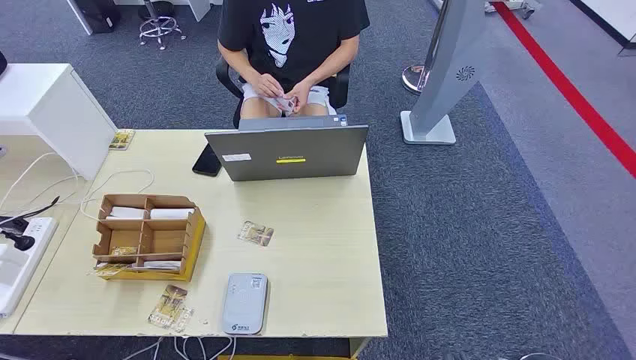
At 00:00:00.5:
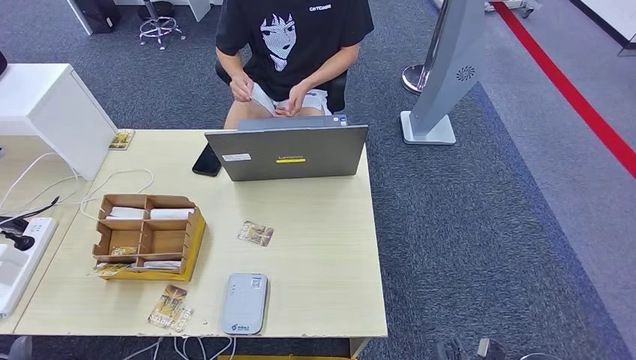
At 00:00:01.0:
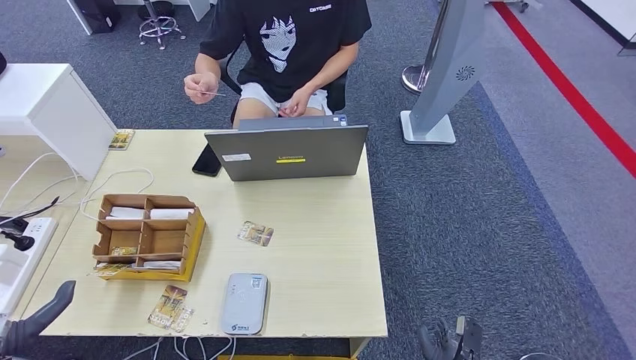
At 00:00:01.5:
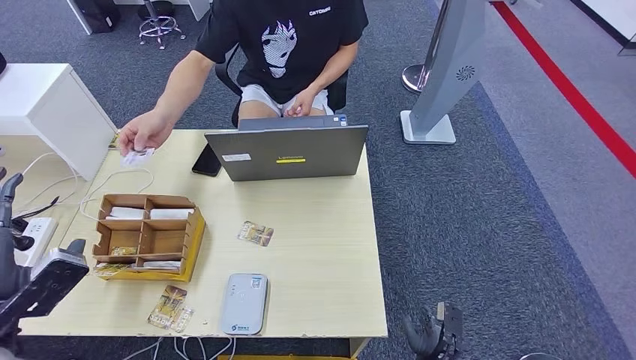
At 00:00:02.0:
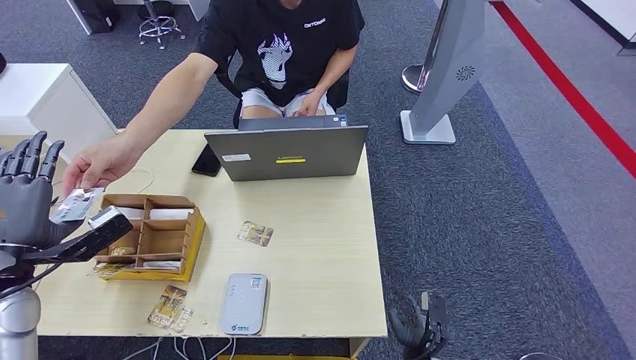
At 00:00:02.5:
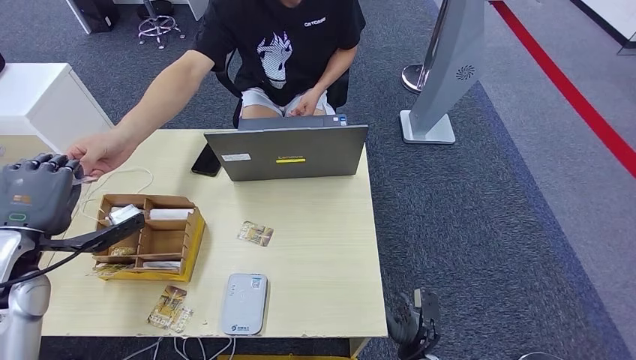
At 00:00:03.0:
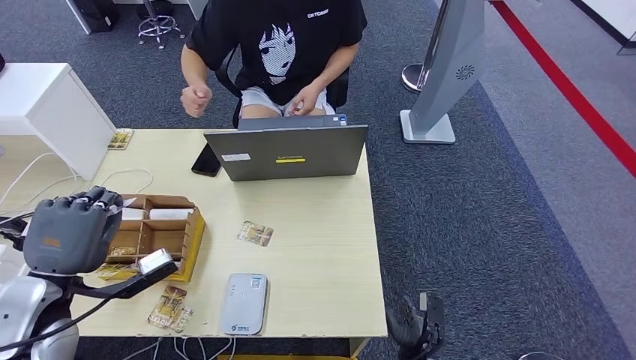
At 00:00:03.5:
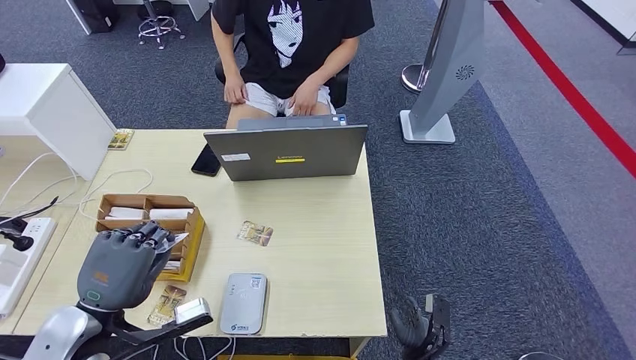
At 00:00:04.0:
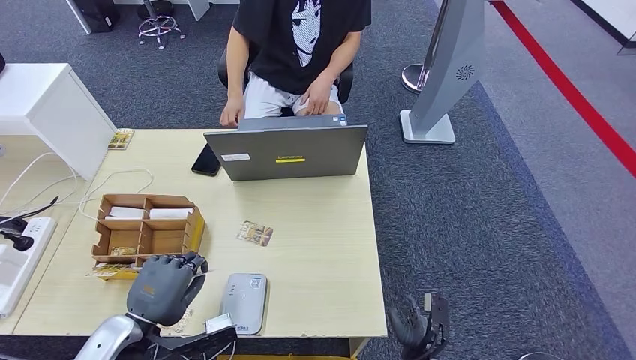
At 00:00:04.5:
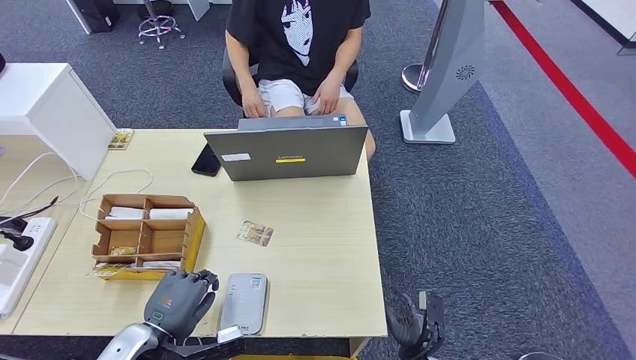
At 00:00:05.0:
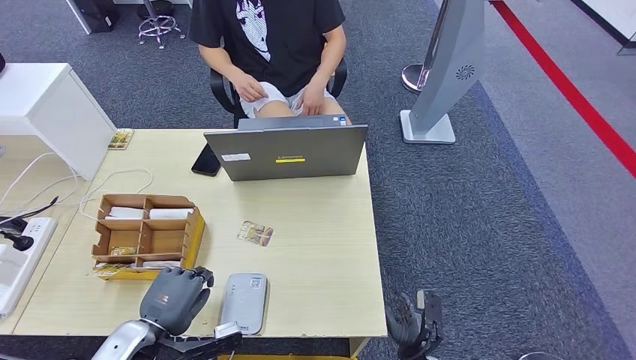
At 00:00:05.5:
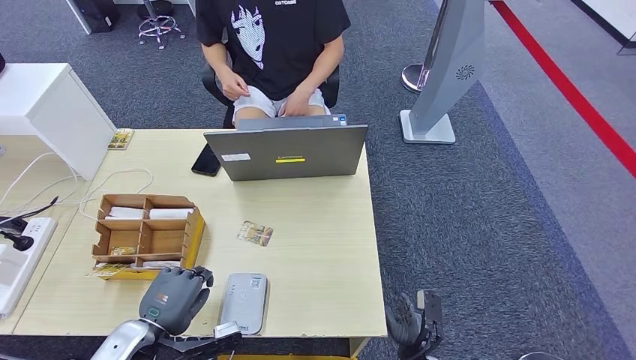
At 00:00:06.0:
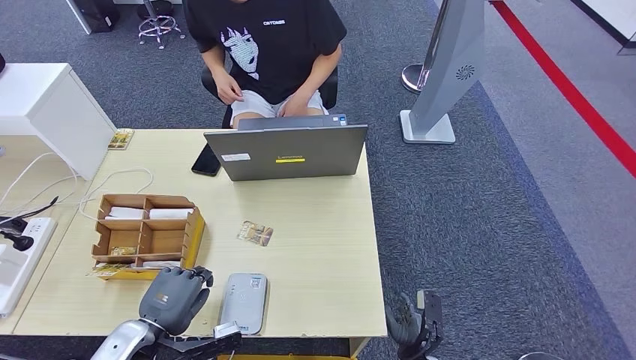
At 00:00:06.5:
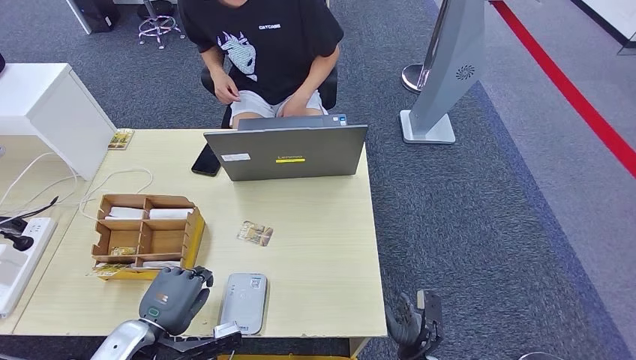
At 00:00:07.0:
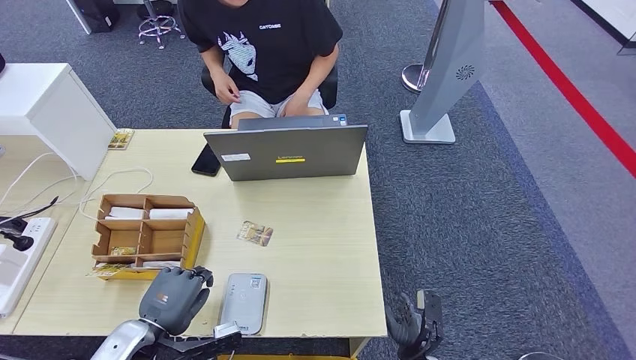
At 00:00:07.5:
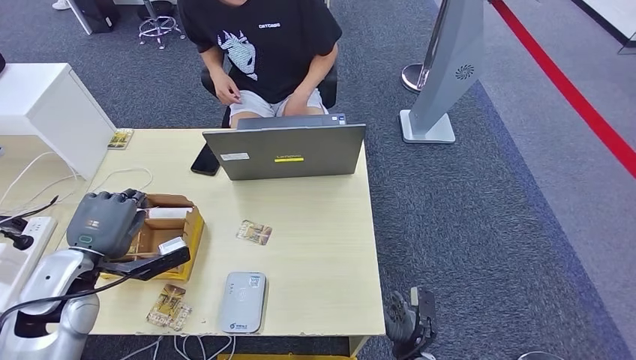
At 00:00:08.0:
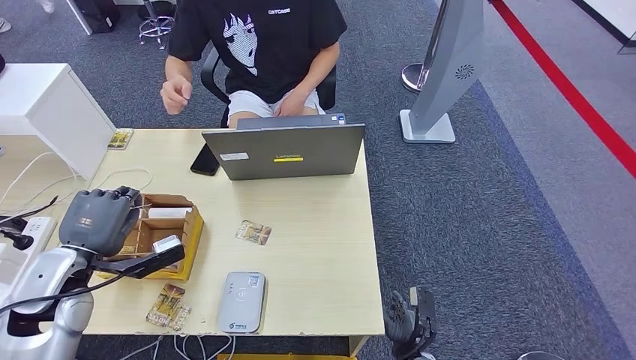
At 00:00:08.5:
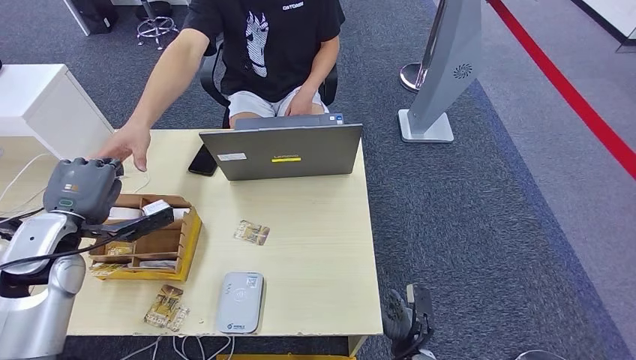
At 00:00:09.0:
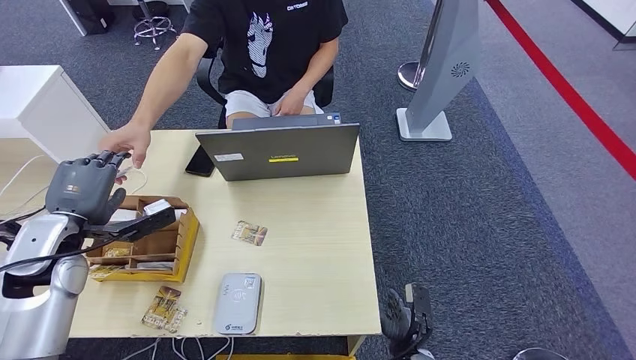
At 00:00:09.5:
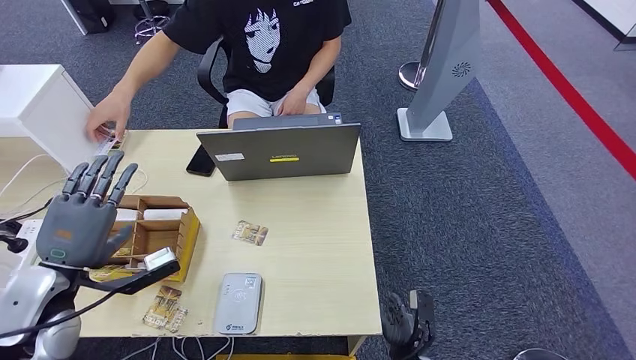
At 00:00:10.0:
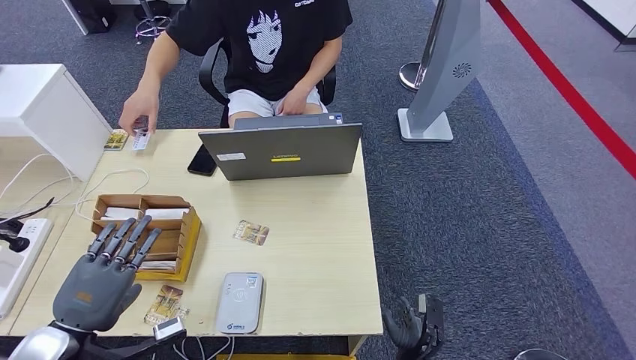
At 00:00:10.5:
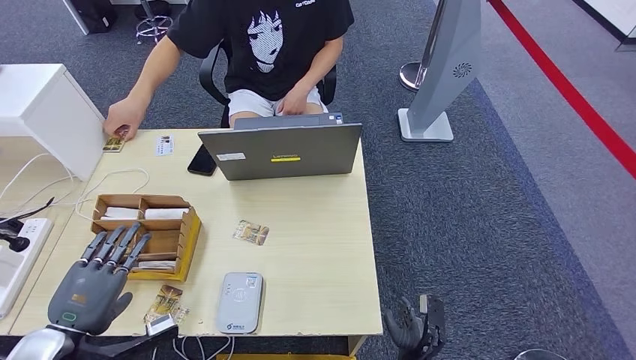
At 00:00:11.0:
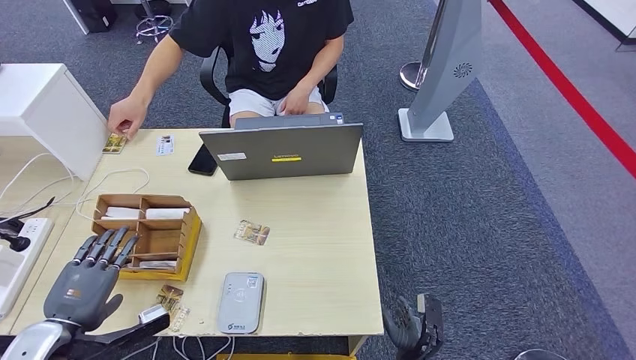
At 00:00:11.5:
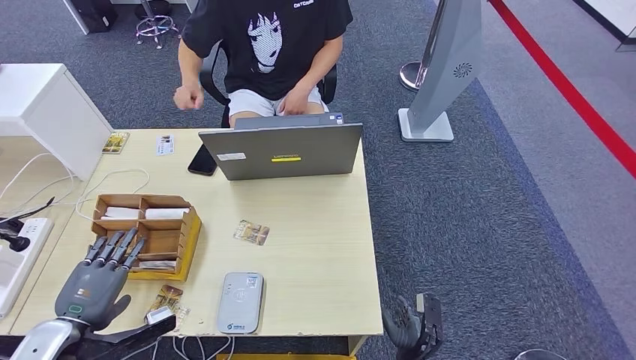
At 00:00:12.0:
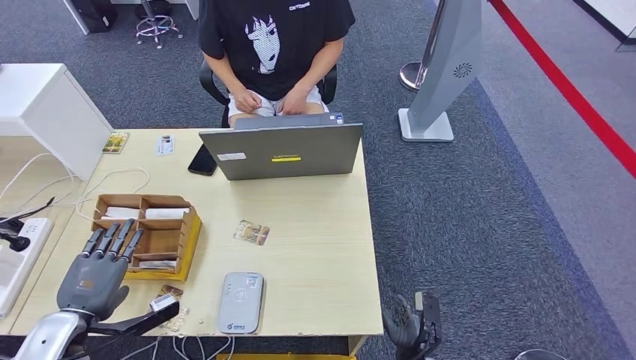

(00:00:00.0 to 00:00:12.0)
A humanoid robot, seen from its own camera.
Step, 00:00:00.0 - 00:00:02.5: Take the ID card from the person's hand.
Step, 00:00:03.0 - 00:00:06.5: Place the ID card on the card reader.
Step, 00:00:07.0 - 00:00:09.5: Hand the ID card to the person.
00:00:02.0 - 00:00:04.0: The left hand is displaced to the right, downward and backward by some 20 cm.
00:00:04.0 - 00:00:06.0: The hands stay close to where they were, moving slightly.
00:00:06.0 - 00:00:08.0: The left hand heads upward, forward and to the left, covering some 15 cm.
00:00:08.0 - 00:00:10.0: The left hand travels backward by about 10 cm.
00:00:10.0 - 00:00:12.0: The left hand changes place by about 5 cm.

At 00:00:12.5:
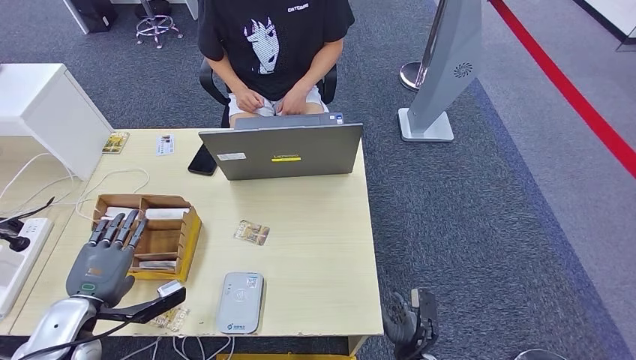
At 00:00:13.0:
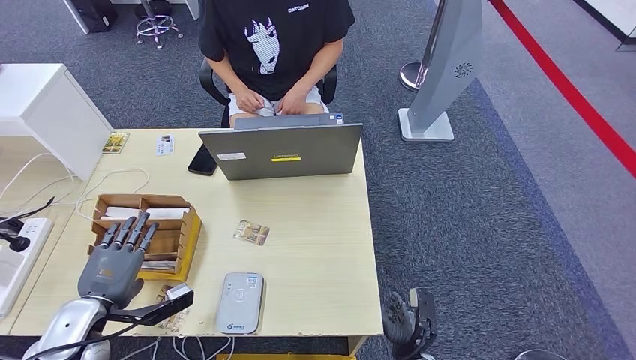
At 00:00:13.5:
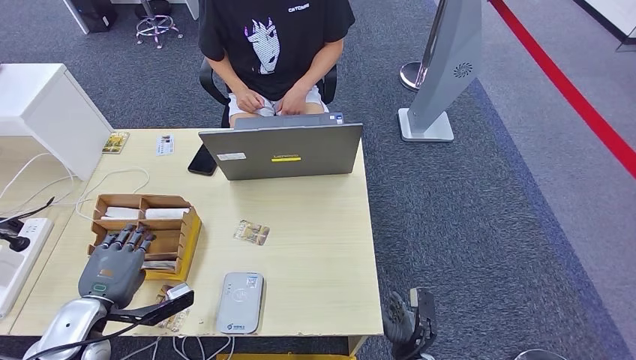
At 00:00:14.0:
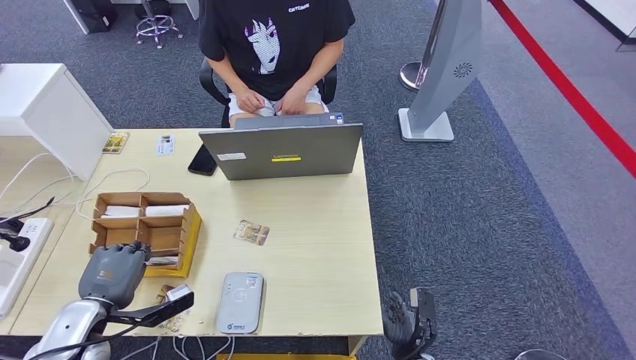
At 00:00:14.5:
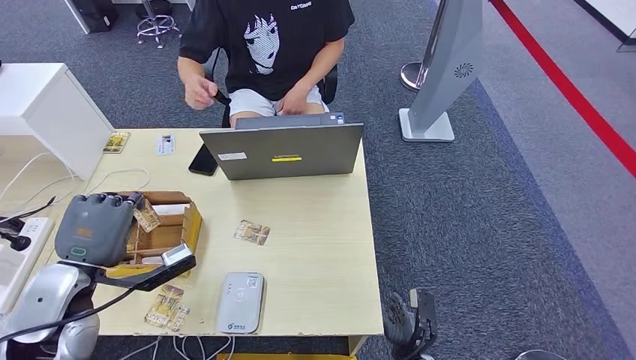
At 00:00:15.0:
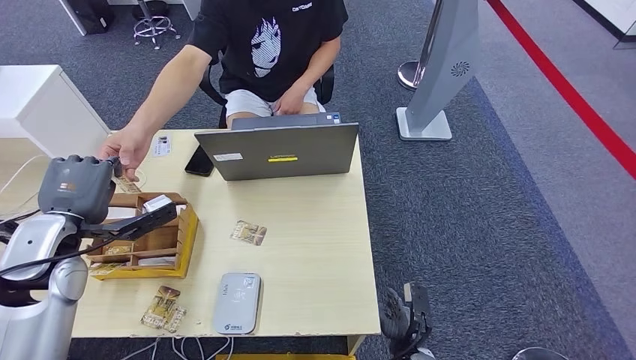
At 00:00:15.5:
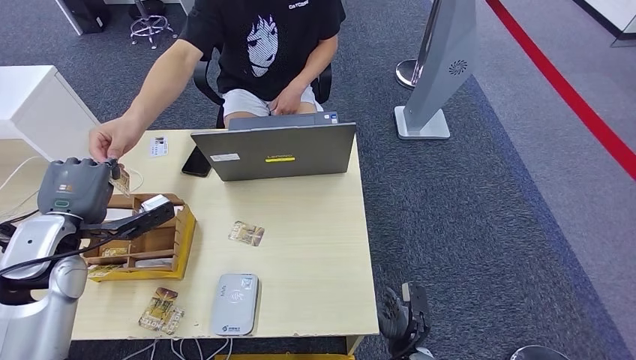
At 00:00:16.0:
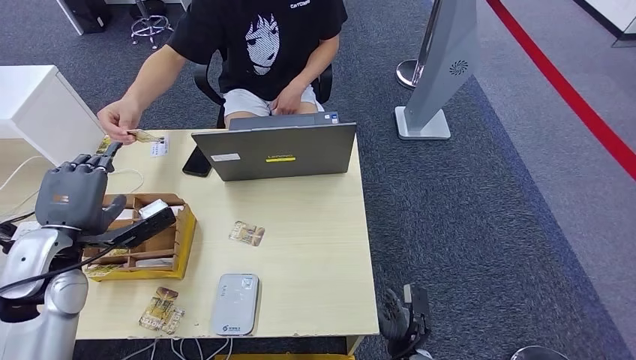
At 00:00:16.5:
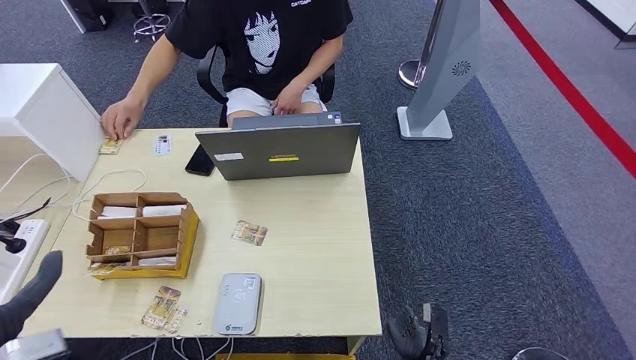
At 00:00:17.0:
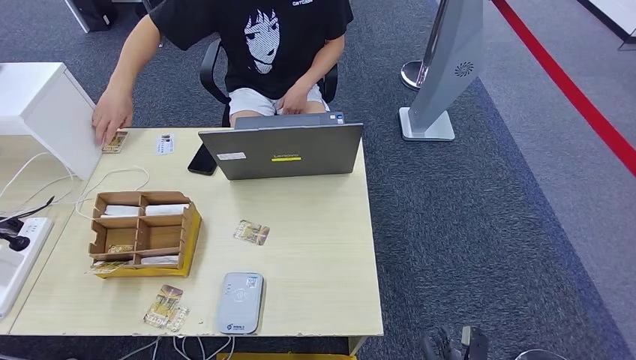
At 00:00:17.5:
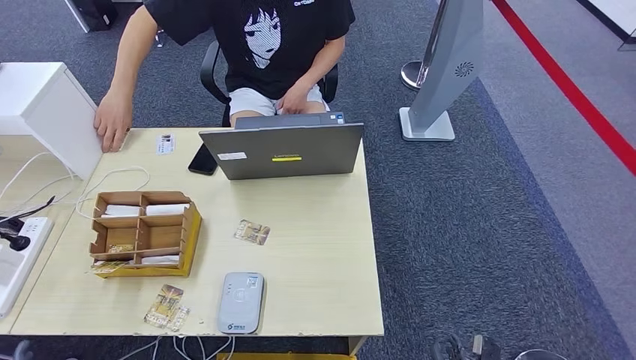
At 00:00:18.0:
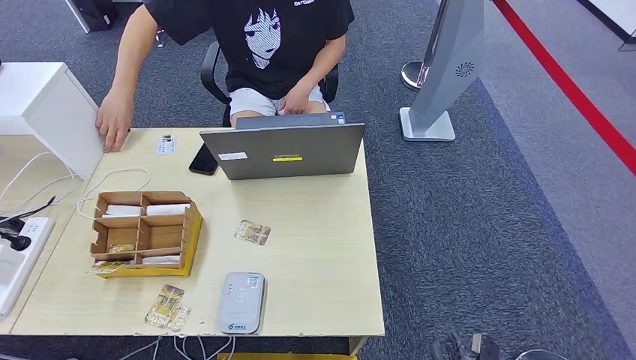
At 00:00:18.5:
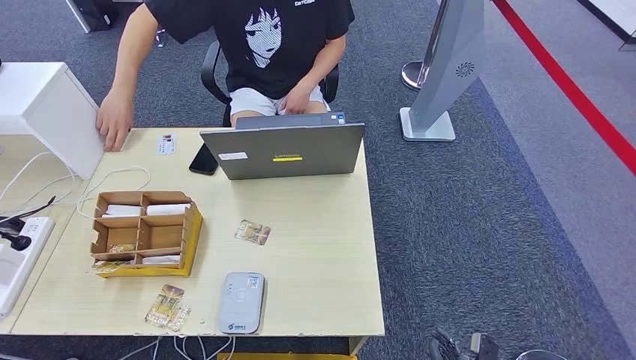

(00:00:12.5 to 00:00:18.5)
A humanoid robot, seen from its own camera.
Step, 00:00:12.5 - 00:00:14.5: Pick up the room key from the key card box.
Step, 00:00:15.0 - 00:00:18.0: Hand the room key to the person.
00:00:12.5 - 00:00:14.5: The left hand travels upward by roughly 10 cm.

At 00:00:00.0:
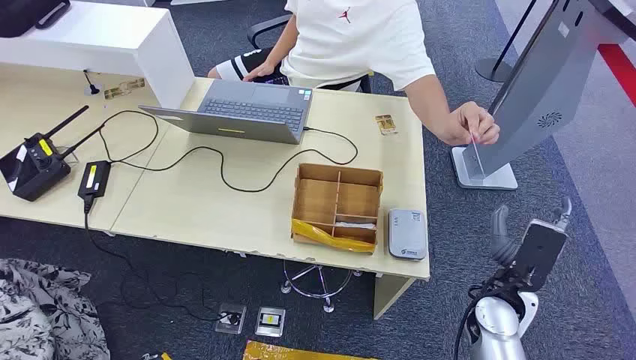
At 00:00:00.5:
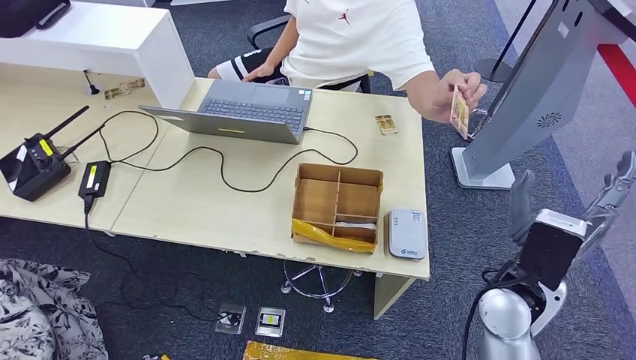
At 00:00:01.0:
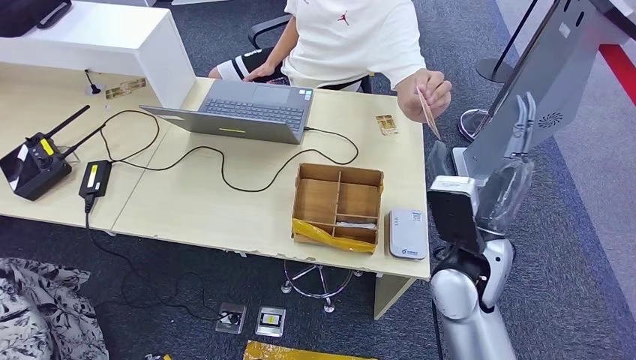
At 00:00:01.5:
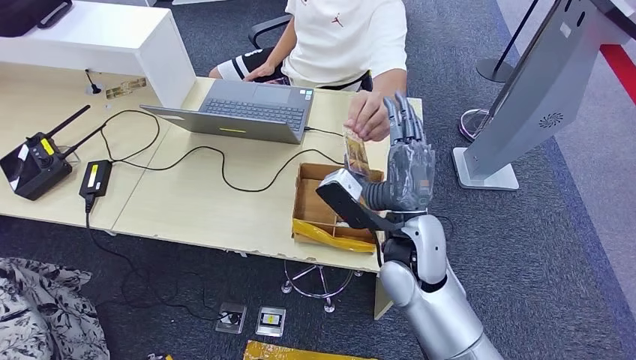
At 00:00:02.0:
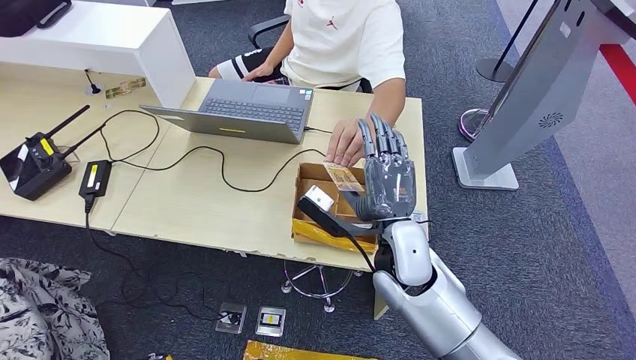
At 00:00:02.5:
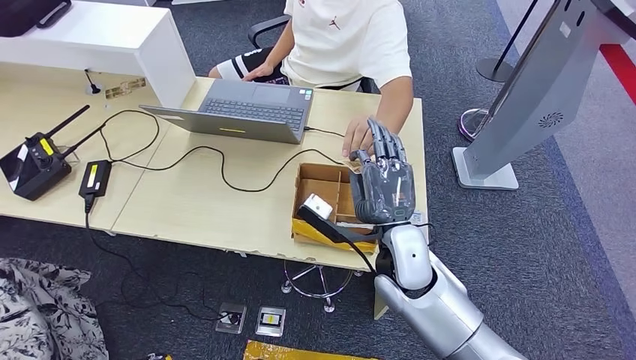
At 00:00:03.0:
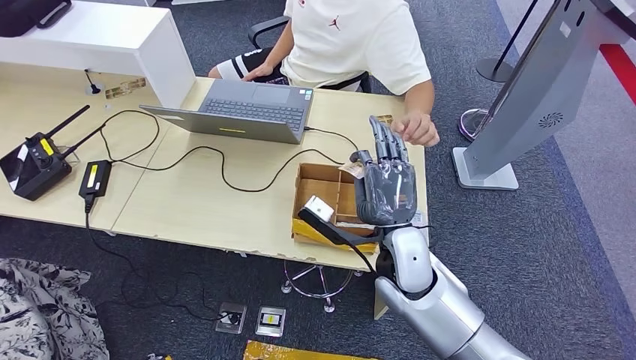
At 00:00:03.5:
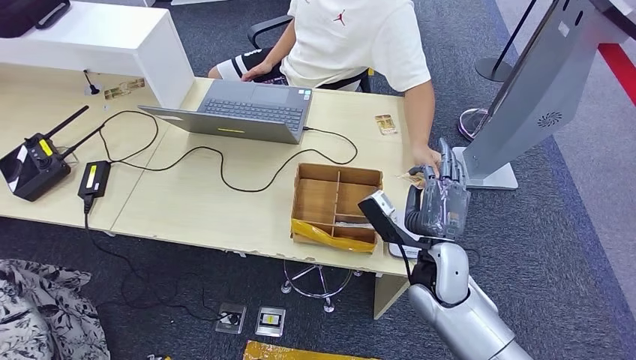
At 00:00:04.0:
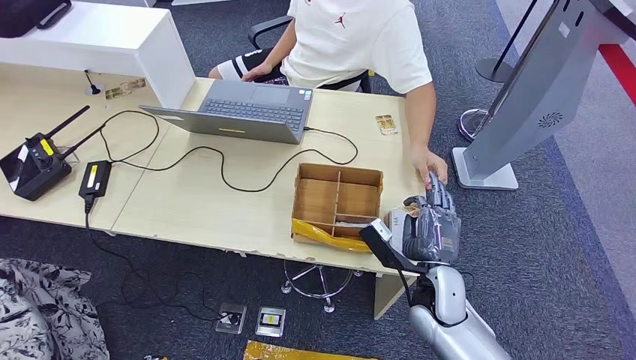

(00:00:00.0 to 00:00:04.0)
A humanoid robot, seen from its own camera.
Step, 00:00:00.0 - 00:00:02.5: Take the ID card from the person's hand.
00:00:02.0 - 00:00:04.0: The right hand travels downward and to the right by roughly 15 cm.
